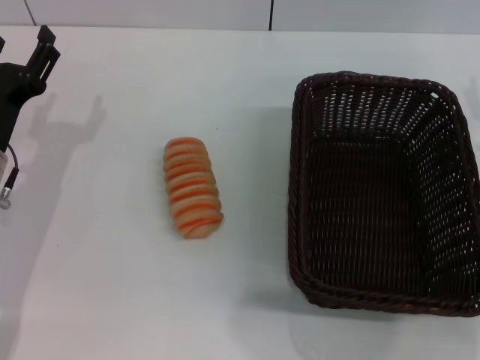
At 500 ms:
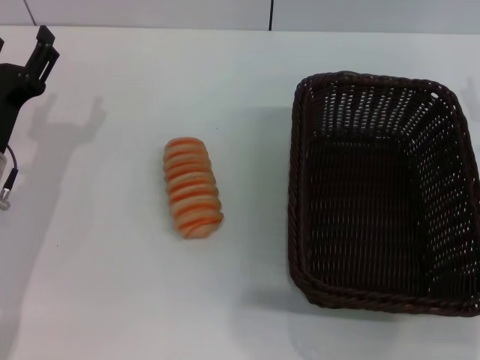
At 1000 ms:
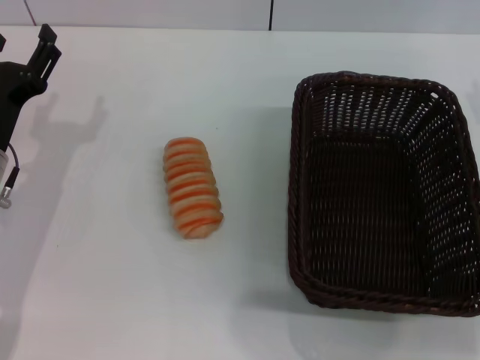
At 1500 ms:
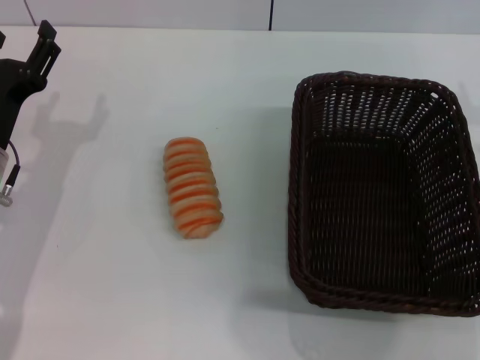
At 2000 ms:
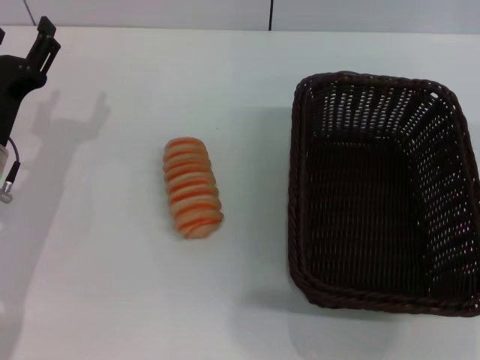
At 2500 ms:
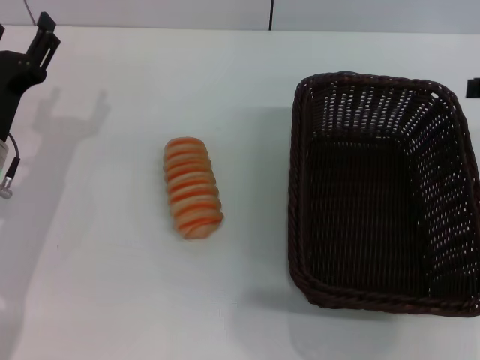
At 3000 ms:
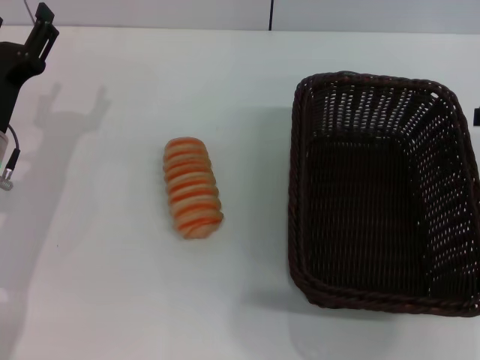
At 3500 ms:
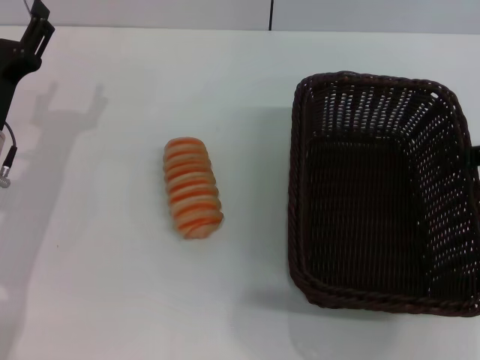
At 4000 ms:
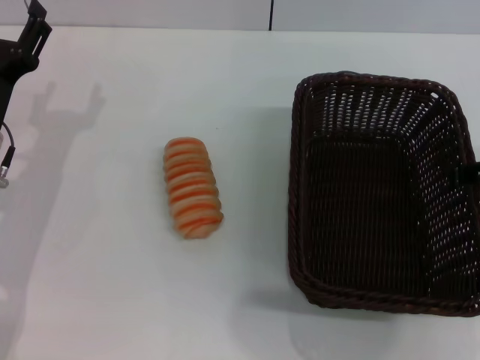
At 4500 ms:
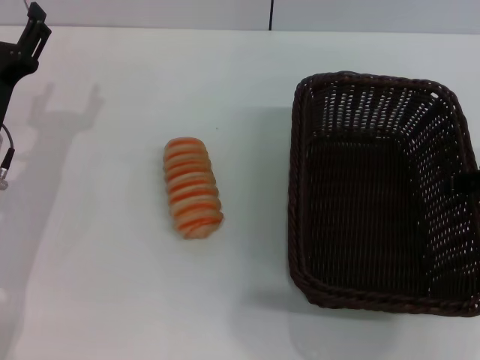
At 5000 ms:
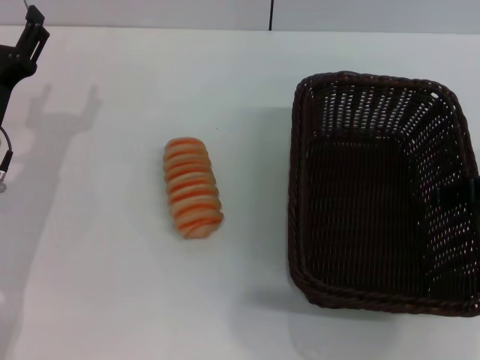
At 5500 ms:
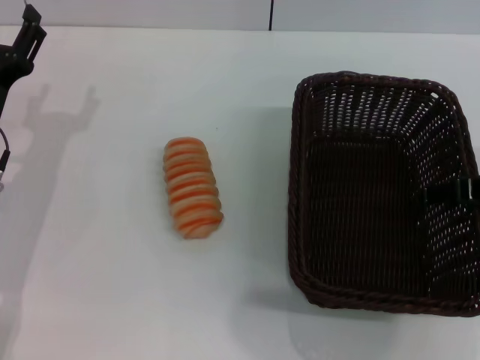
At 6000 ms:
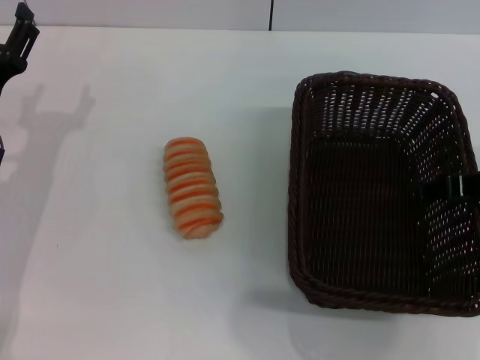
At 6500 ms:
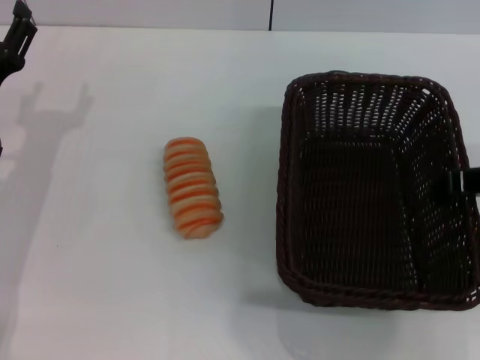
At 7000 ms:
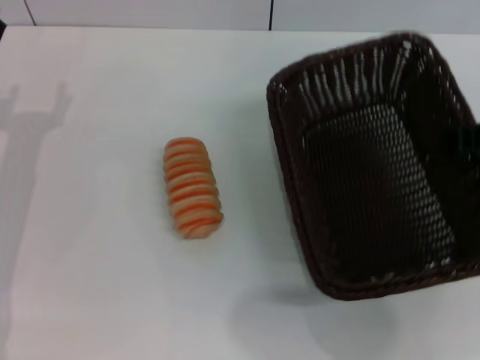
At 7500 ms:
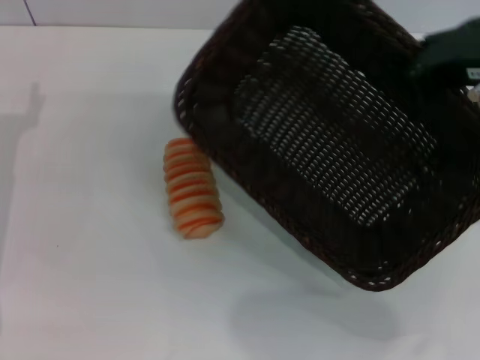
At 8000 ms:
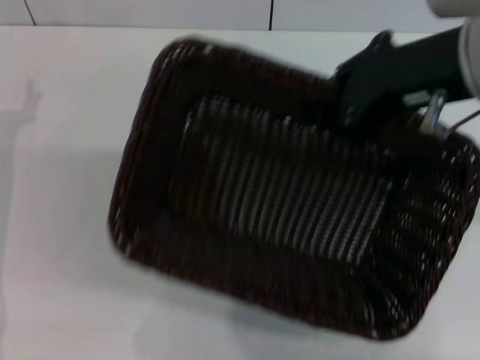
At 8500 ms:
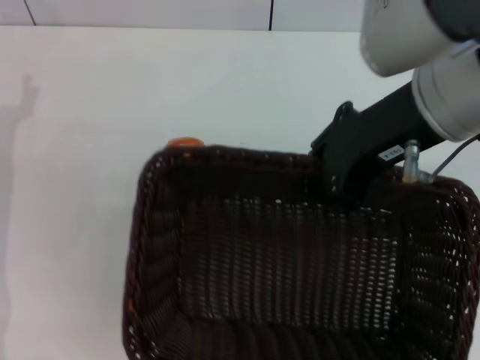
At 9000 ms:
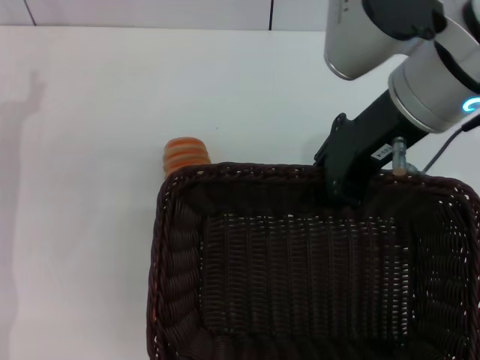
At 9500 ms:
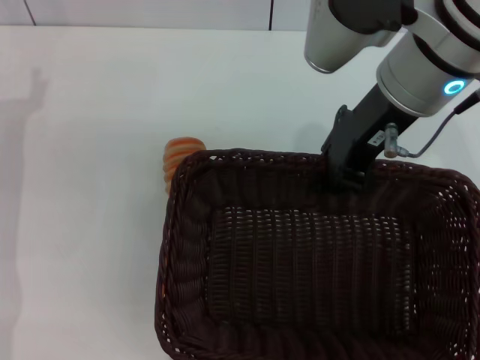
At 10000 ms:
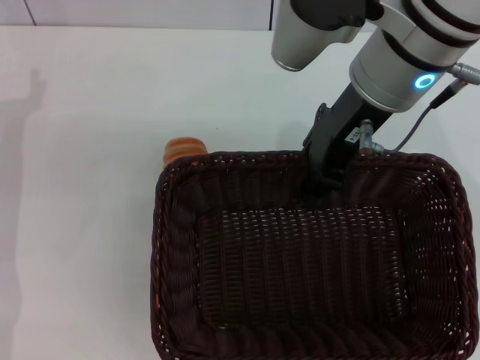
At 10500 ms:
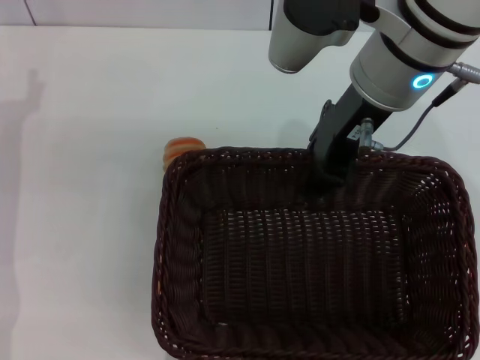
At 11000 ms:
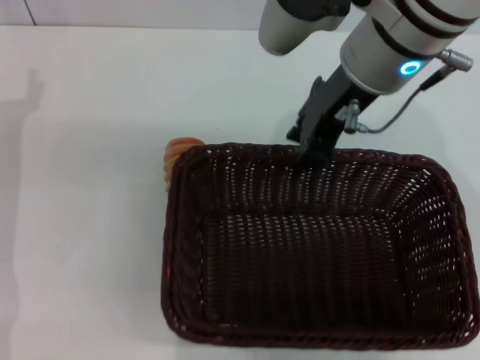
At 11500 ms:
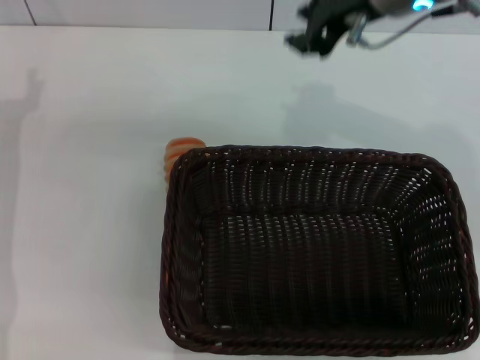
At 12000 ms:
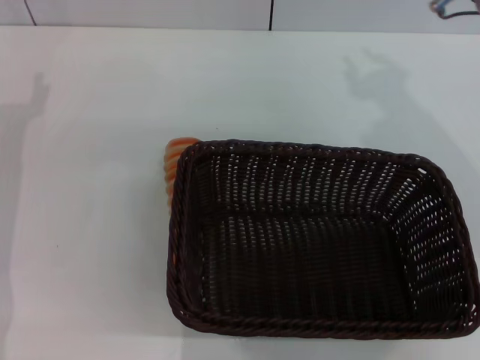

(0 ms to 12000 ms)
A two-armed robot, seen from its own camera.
Step, 0 ms - 7000 ms: Pick up the dark basket with the right gripper.
Step, 7500 ms - 11000 ms: Place the dark basket in the center of view with the right gripper.
4000 ms - 6000 ms: There are only small adjustments of the grippers.
6000 ms - 8000 ms: The right gripper moves upward and to the left, roughly 15 cm, and closes its fingers.
8000 ms - 10000 ms: The right gripper goes approximately 10 cm to the left and forward.
10000 ms - 12000 ms: The right gripper shifts some 10 cm to the right.

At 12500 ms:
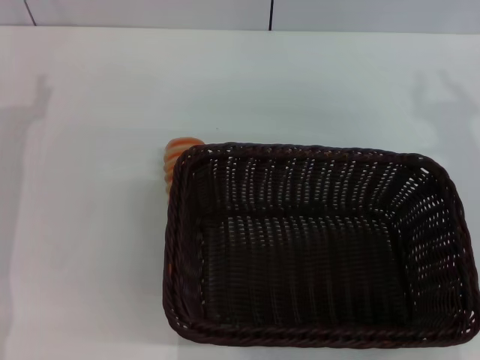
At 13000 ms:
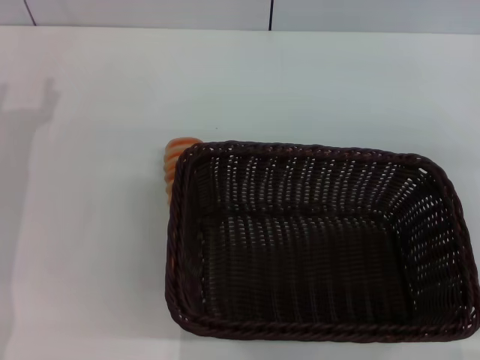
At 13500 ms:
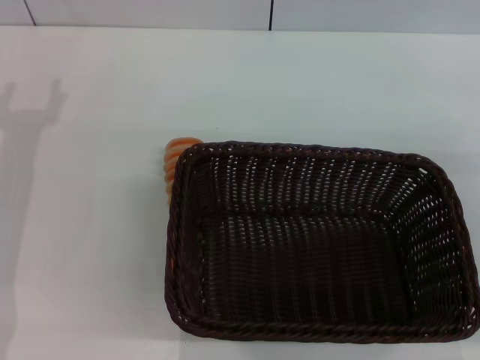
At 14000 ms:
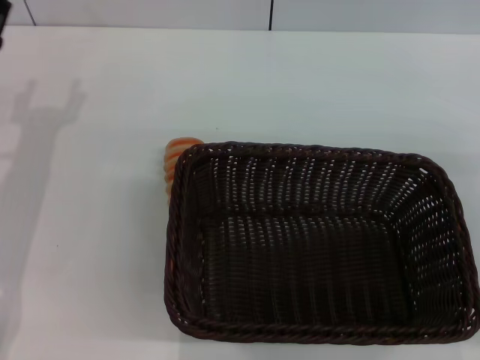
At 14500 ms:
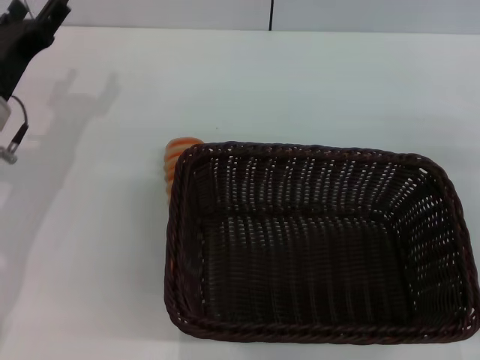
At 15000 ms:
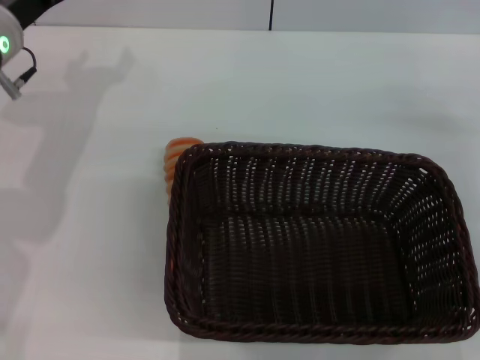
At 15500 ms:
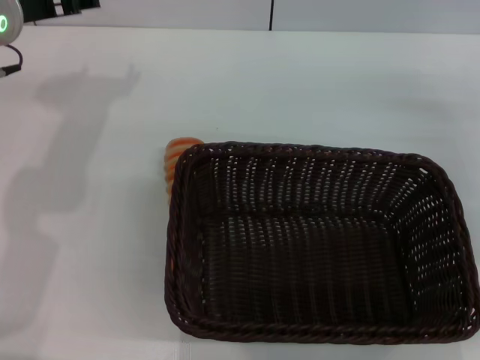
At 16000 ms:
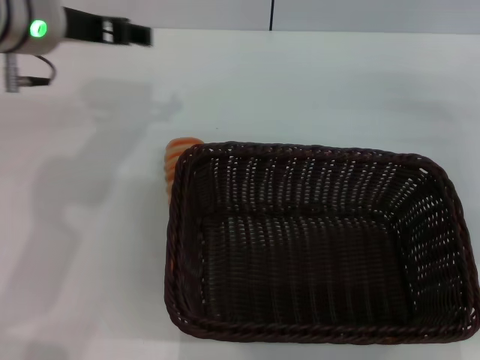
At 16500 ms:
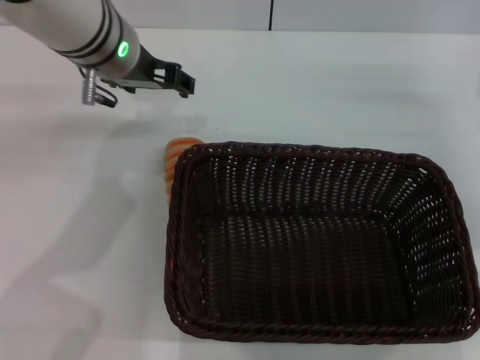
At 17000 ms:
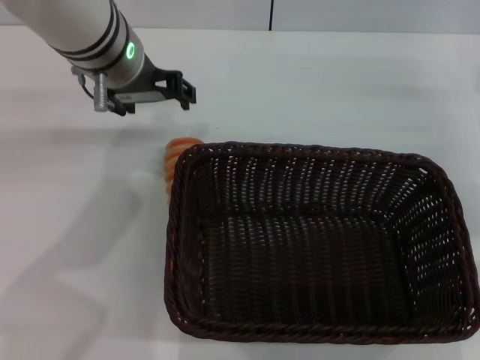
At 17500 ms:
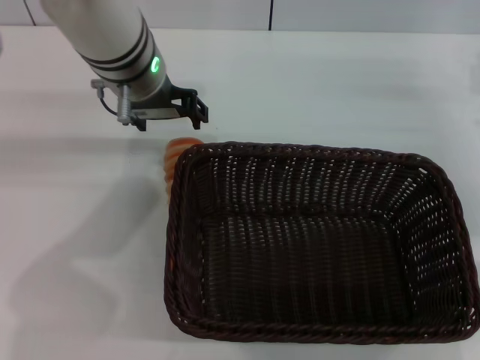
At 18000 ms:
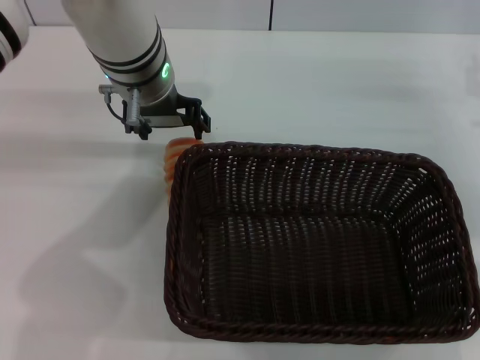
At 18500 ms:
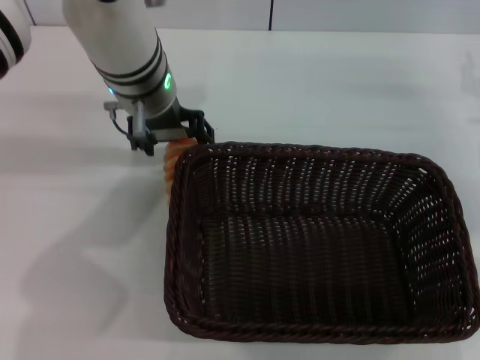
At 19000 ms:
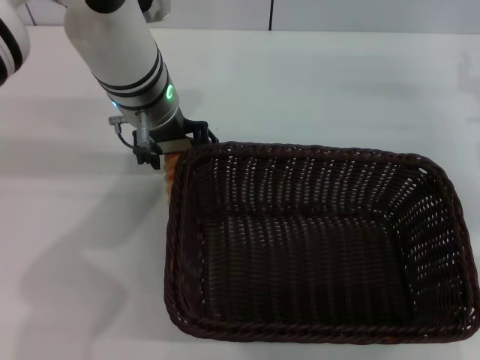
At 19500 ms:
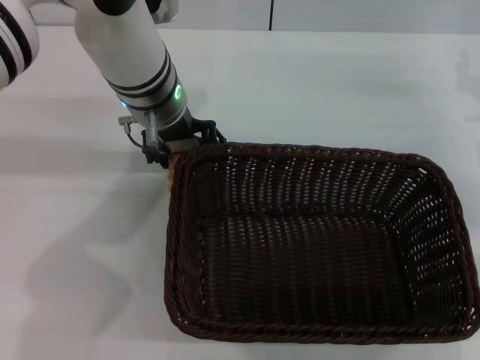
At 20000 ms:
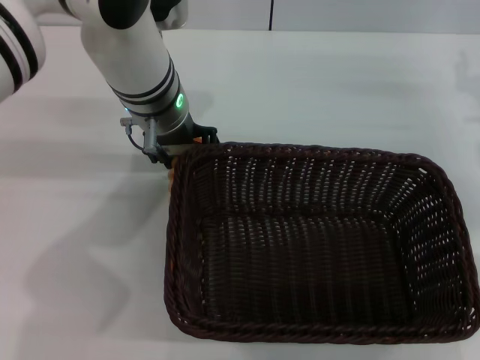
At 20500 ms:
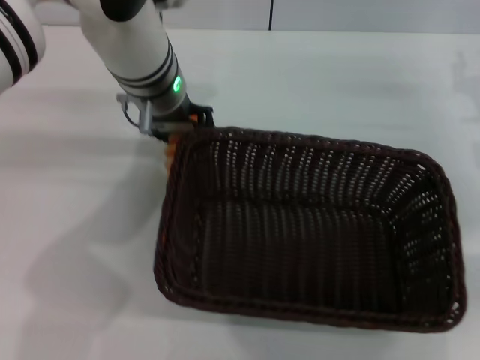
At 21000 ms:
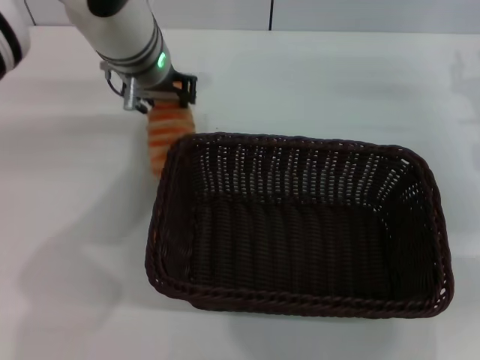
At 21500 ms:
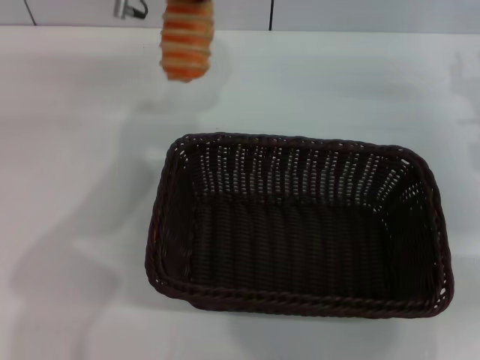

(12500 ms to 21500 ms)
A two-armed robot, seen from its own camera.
Step, 12500 ms - 21000 ms: Pick up the long bread with the left gripper.
12500 ms - 14500 ms: The right gripper moves to the right and downward, about 10 cm.
14500 ms - 17000 ms: The left gripper shifts about 20 cm to the right and upward. The right gripper heads forward, covering about 10 cm.
17000 ms - 19500 ms: The left gripper moves approximately 5 cm.
19500 ms - 21500 ms: The left gripper shifts roughly 10 cm upward and forward, and closes up.

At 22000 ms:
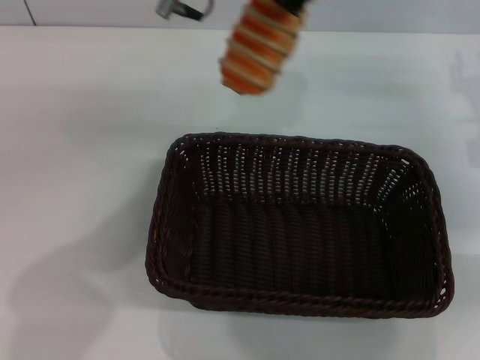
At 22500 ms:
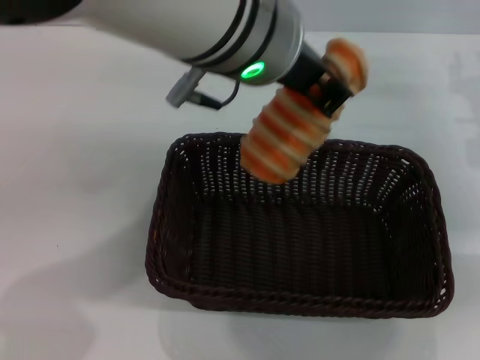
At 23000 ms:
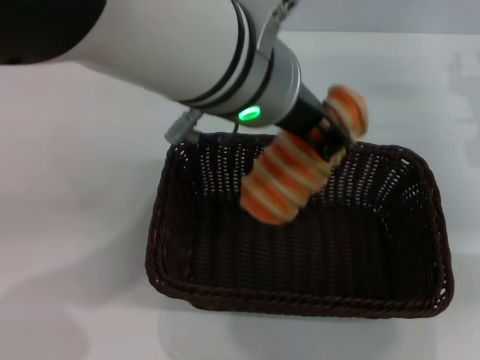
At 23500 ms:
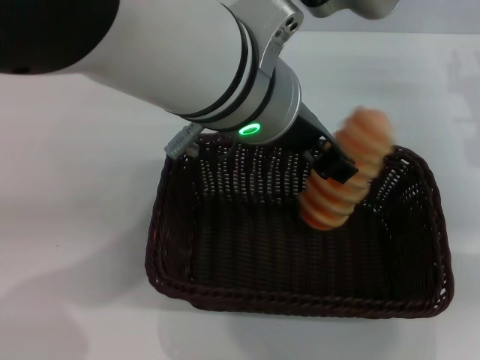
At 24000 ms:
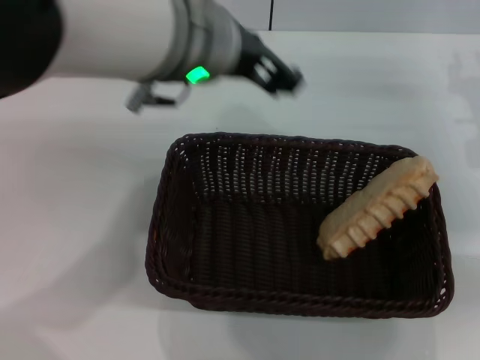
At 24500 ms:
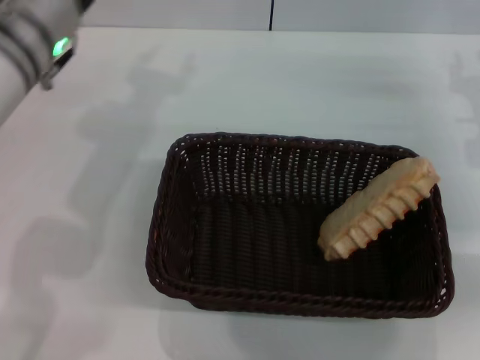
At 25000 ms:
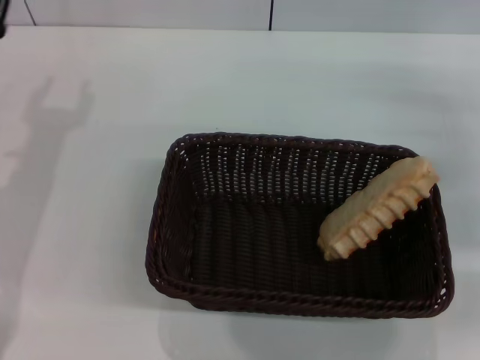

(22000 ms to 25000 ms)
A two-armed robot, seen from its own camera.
Step, 22000 ms - 23500 ms: Place the long bread into the dark basket with the left gripper.
22000 ms - 23500 ms: The left gripper goes roughly 10 cm backward, and opens its fingers.
23500 ms - 25000 ms: The left gripper goes roughly 30 cm to the left and downward.

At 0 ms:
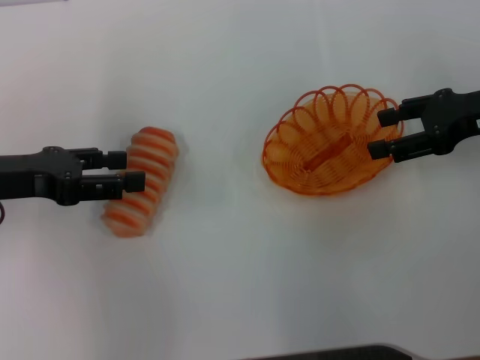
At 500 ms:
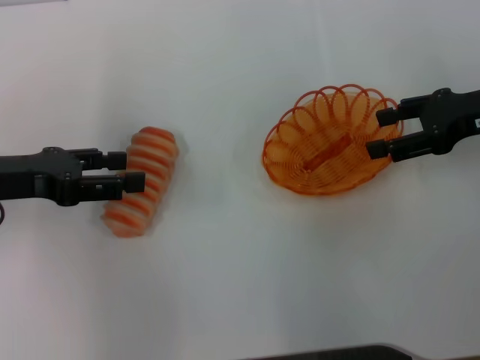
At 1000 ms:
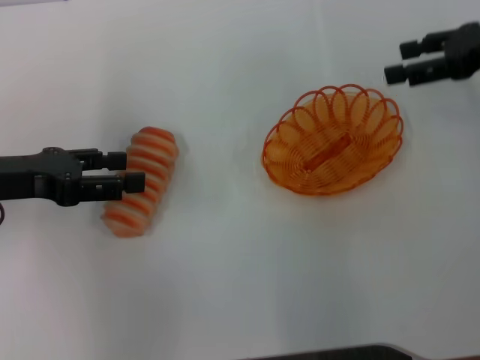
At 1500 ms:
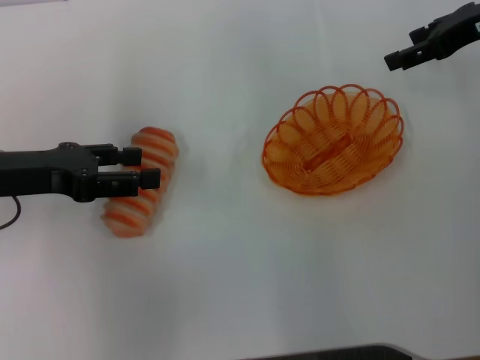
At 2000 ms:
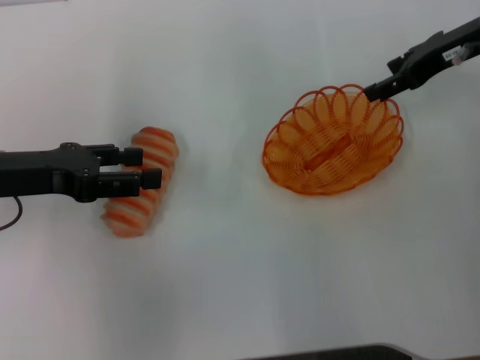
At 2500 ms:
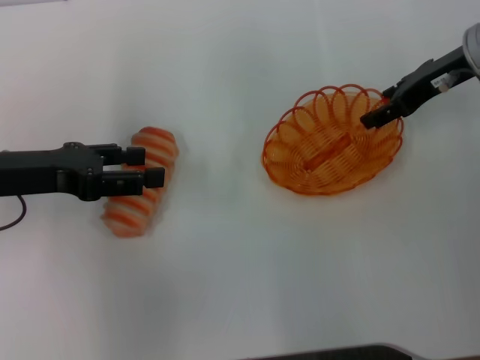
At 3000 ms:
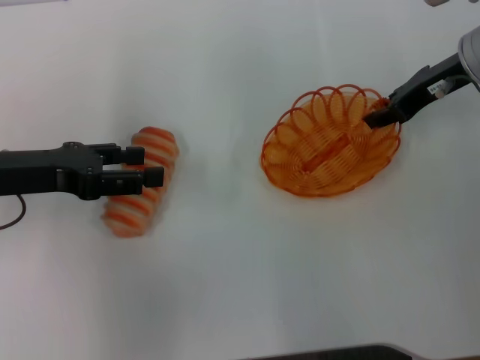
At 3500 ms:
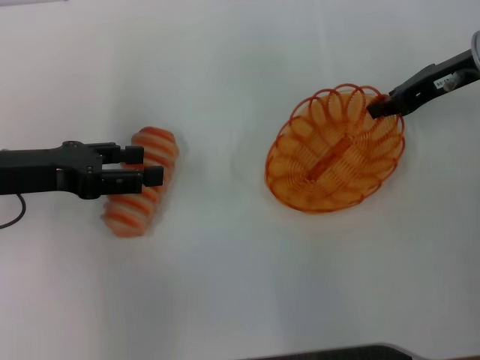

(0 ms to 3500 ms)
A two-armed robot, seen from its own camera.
0 ms - 2000 ms: The right gripper is displaced forward by some 10 cm.
2000 ms - 3500 ms: The right gripper closes its fingers.
